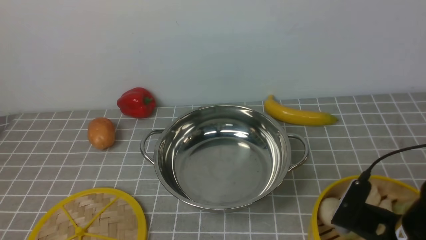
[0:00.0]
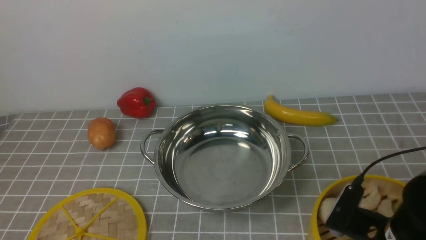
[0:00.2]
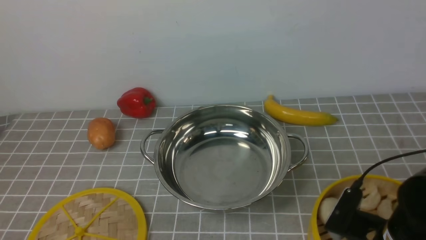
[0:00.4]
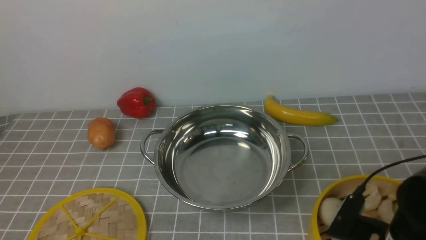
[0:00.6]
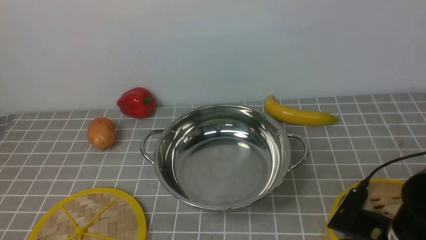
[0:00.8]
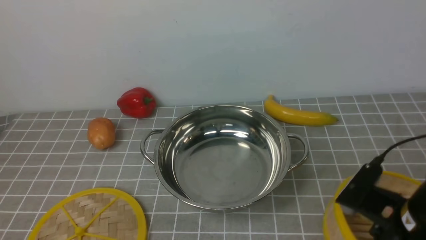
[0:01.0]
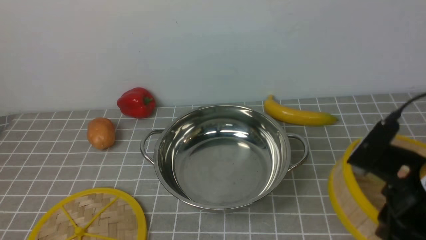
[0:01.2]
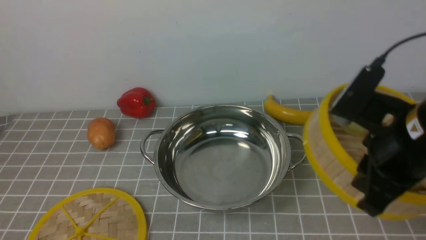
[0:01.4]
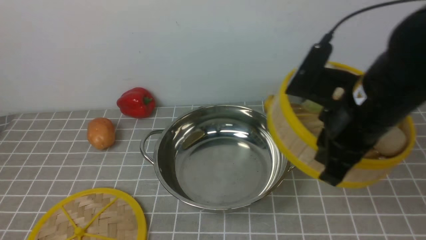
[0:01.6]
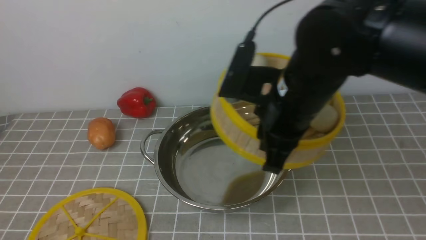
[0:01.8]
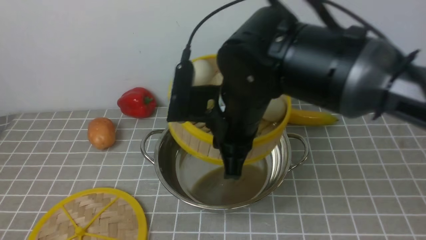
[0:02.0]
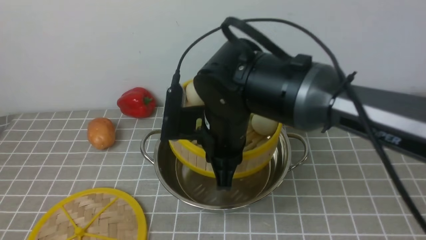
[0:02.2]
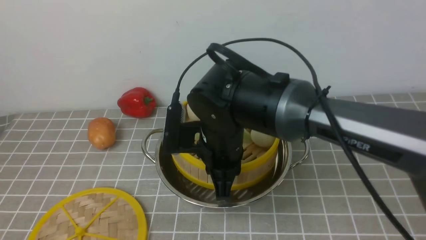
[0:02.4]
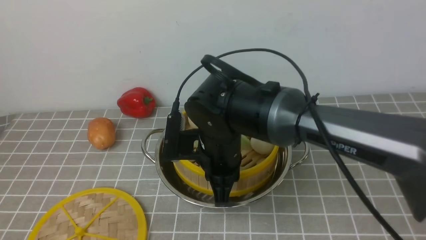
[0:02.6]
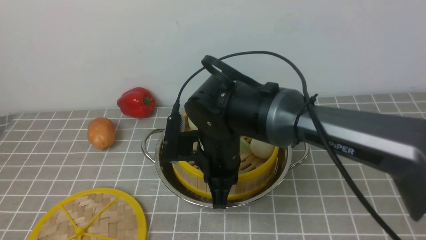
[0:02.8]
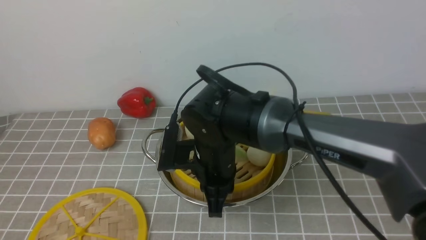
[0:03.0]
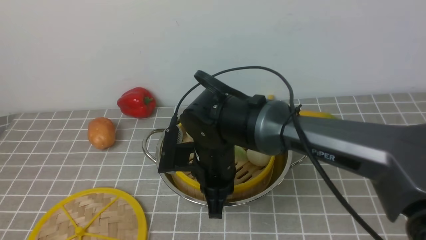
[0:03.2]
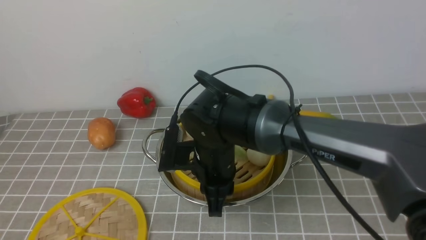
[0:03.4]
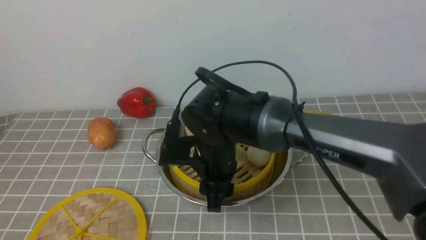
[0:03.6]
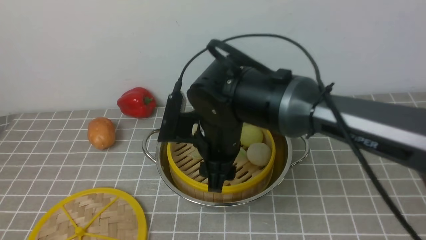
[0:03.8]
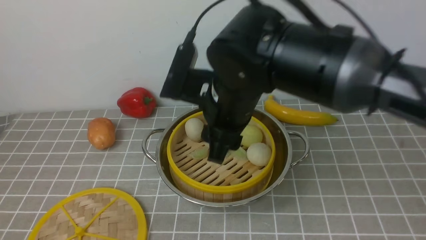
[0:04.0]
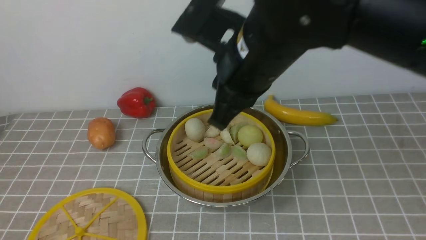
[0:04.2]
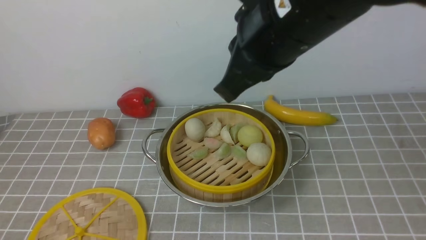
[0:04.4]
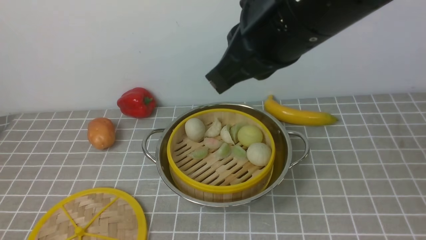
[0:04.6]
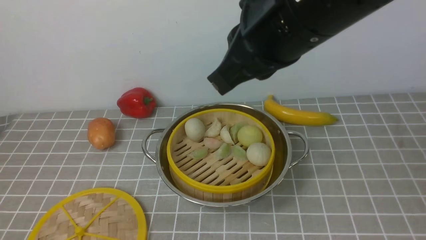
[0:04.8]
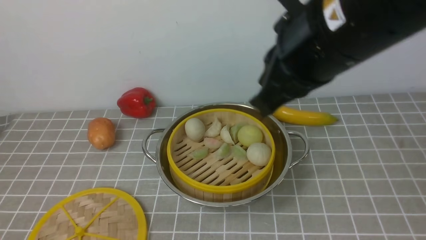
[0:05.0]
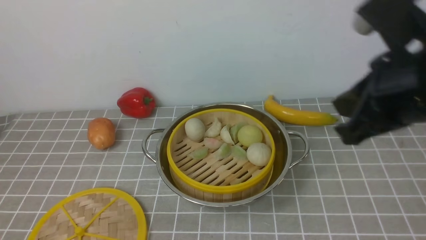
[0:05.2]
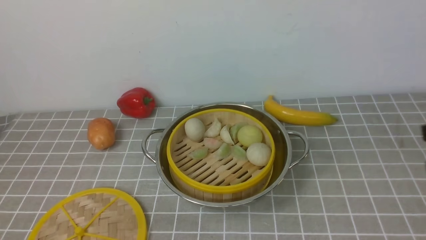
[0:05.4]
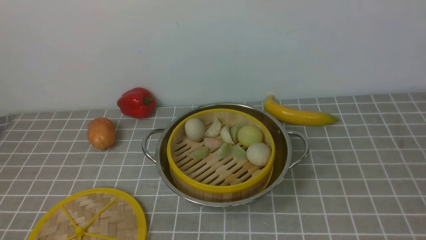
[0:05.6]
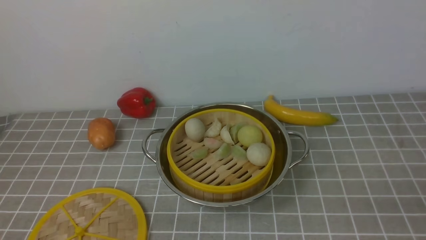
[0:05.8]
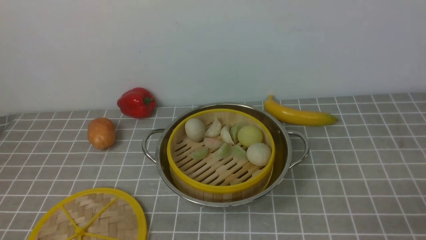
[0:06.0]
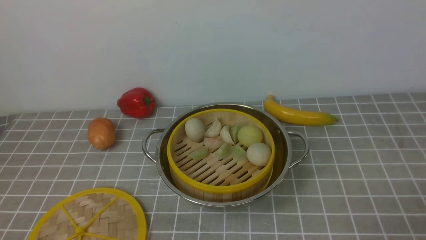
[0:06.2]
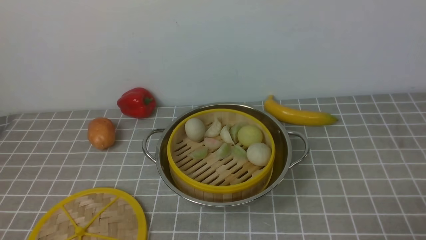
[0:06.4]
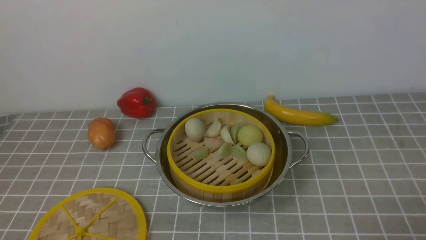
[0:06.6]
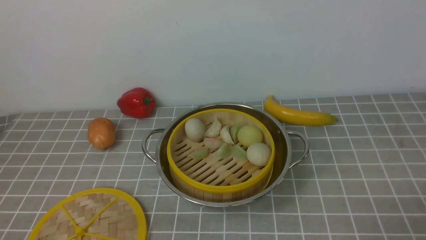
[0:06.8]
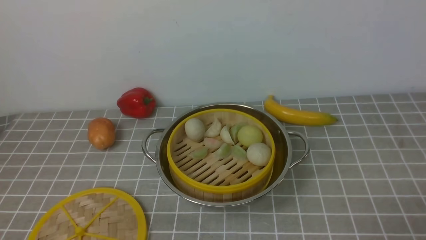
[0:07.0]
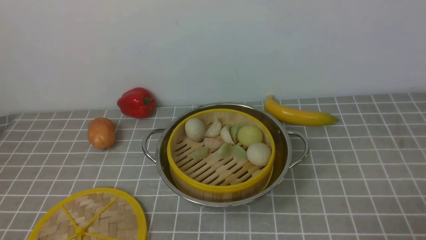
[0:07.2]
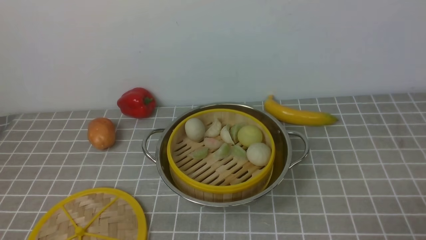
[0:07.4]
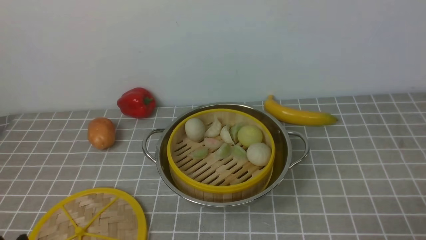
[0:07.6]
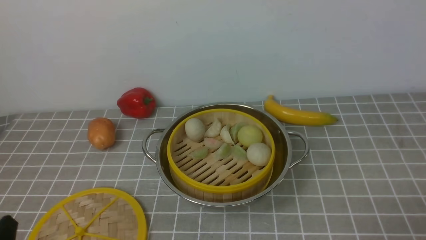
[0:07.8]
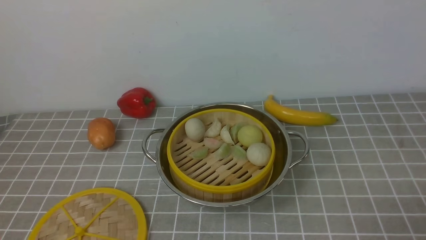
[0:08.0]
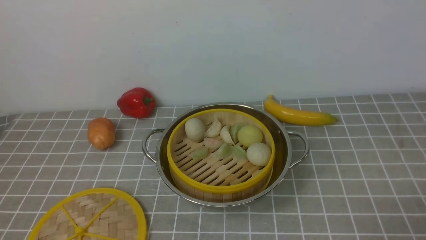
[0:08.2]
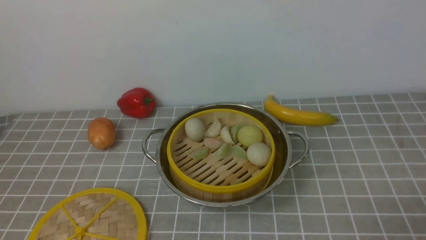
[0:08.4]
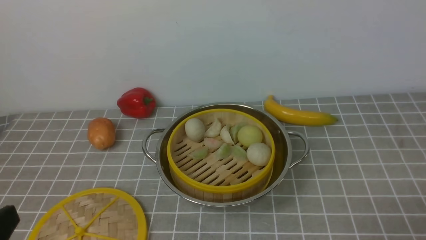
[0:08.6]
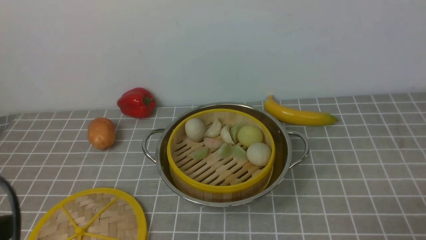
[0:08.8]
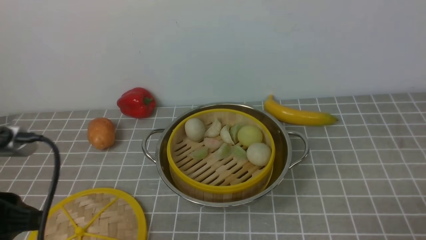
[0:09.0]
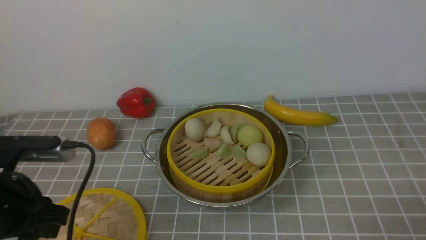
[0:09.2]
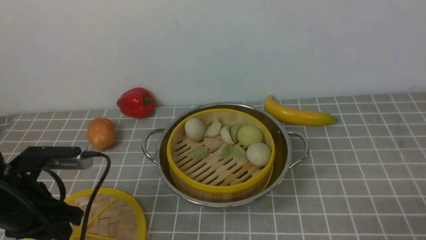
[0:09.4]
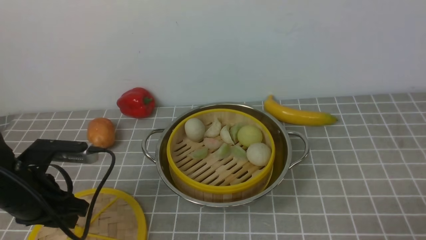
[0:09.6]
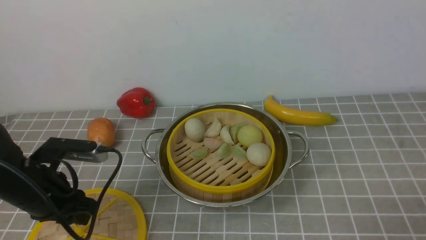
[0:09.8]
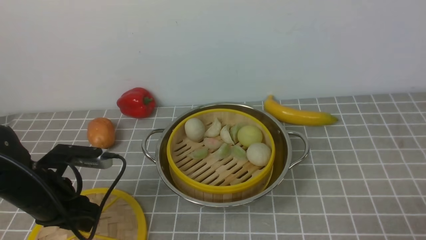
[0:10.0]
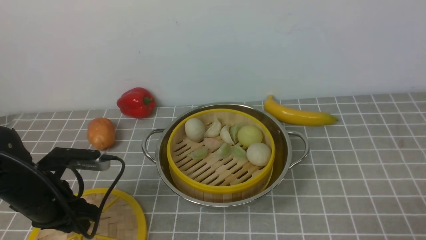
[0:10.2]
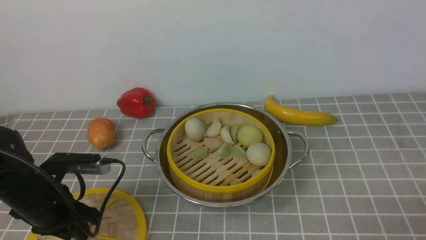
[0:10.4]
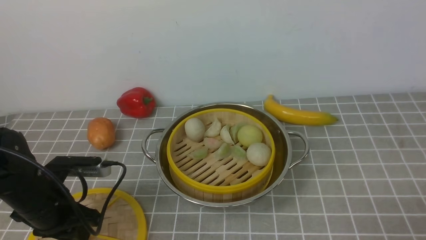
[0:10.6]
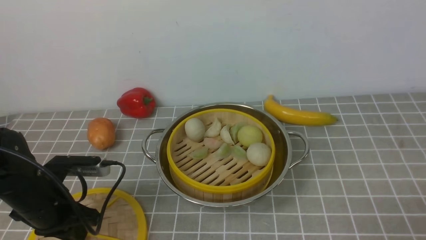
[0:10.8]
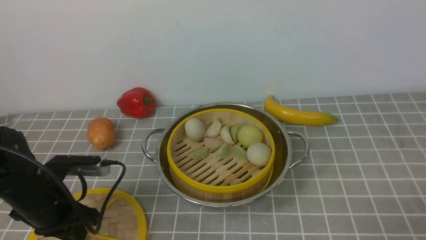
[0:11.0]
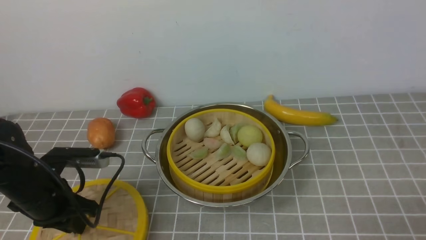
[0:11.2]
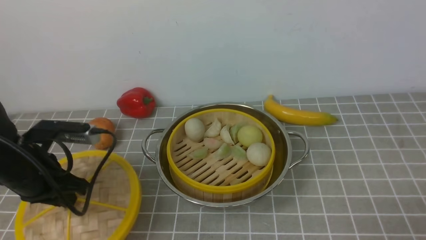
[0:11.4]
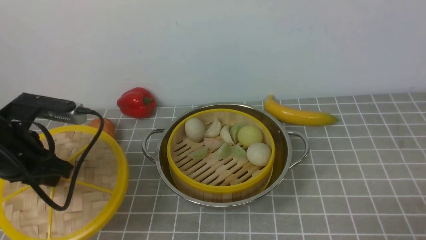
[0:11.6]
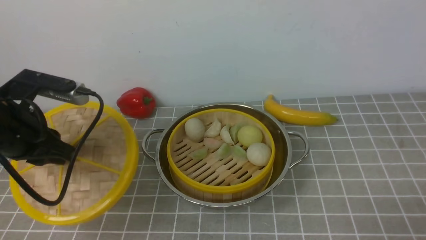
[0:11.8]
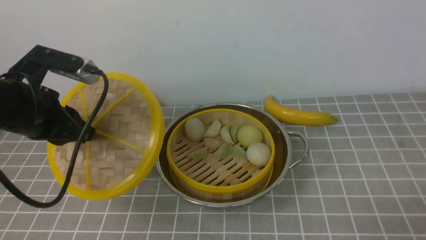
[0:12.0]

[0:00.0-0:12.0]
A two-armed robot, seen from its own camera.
Task of the whole recording: place the steamer in the pot on the grey tablecloth, and put the lid on the steamer.
Step, 0:01.0 to 0:03.6: use the right arm to put the steamer into the iron steamer pot in the middle.
Step, 0:03.8 to 0:11.2: use the left arm to lift the lid of the steamer.
0:00.0 to 0:01.6: The right gripper moves upward, forward and to the left, about 15 cm, and closes its fingers.
0:01.6 to 0:03.0: The right gripper travels to the left and downward by about 20 cm.
0:03.0 to 0:04.4: The right gripper travels upward by about 20 cm, and opens, then closes again.
0:04.4 to 0:06.0: The right gripper shifts about 40 cm to the right, downward and backward.
0:07.6 to 0:09.0: The left gripper heads upward and forward, covering approximately 15 cm.
0:09.0 to 0:10.4: The left gripper heads downward and forward, covering roughly 15 cm.
0:10.4 to 0:12.0: The left gripper is displaced upward by roughly 15 cm, and closes.

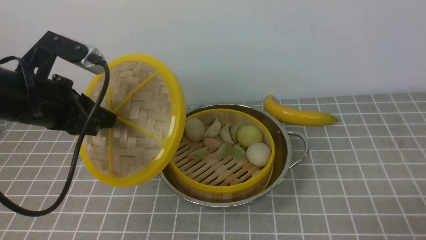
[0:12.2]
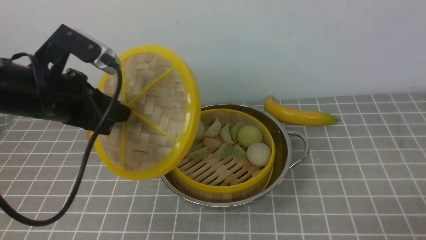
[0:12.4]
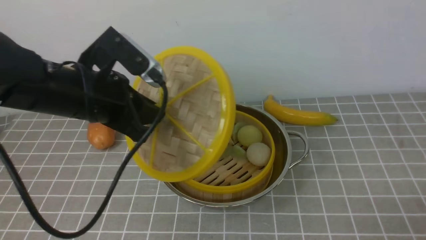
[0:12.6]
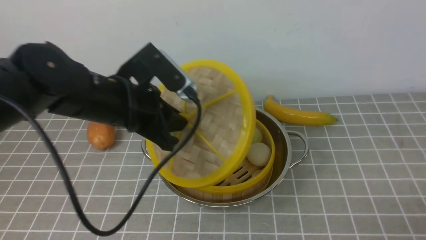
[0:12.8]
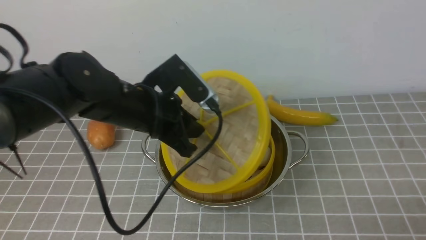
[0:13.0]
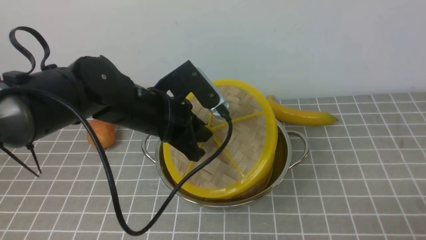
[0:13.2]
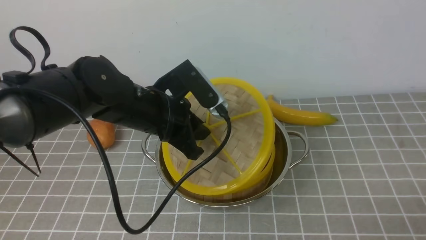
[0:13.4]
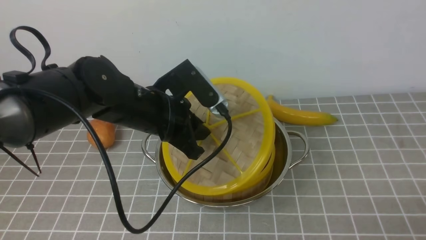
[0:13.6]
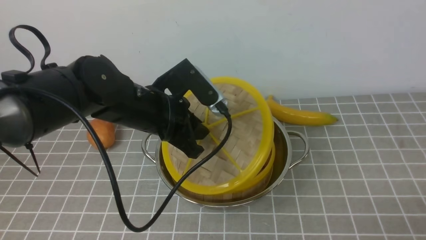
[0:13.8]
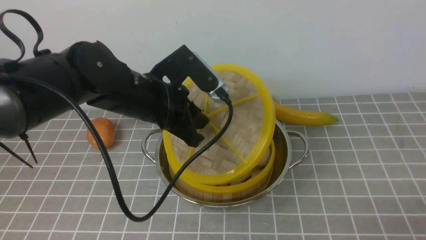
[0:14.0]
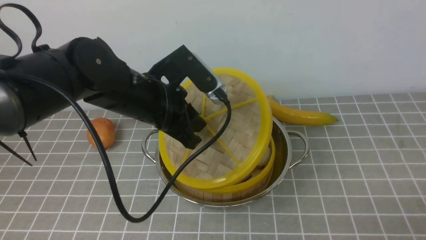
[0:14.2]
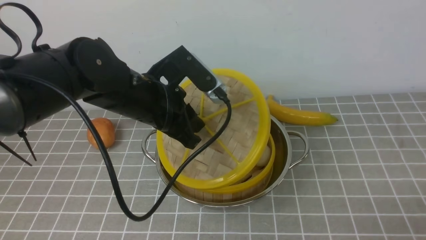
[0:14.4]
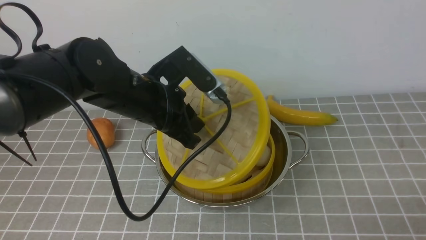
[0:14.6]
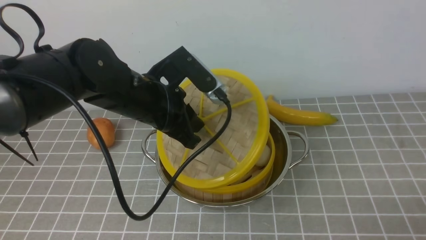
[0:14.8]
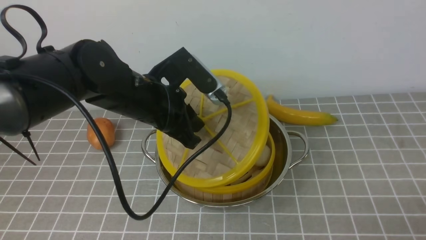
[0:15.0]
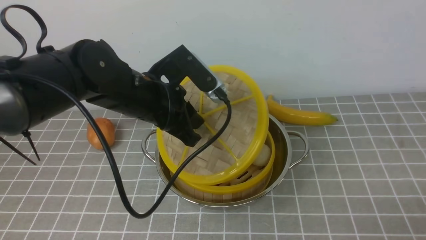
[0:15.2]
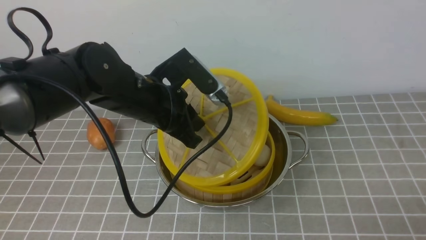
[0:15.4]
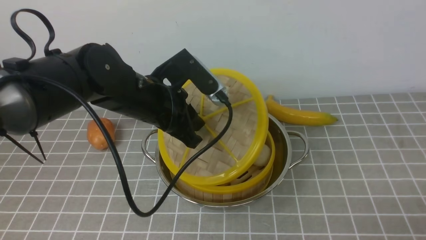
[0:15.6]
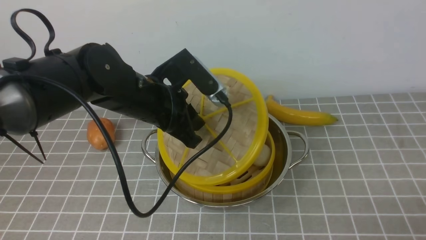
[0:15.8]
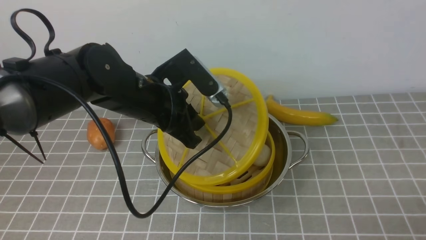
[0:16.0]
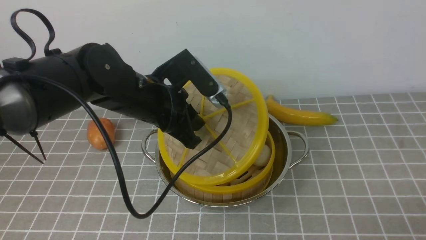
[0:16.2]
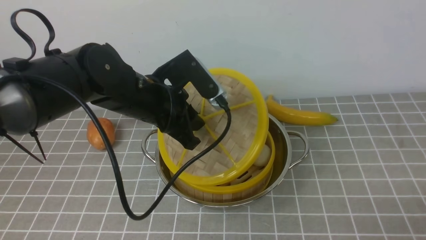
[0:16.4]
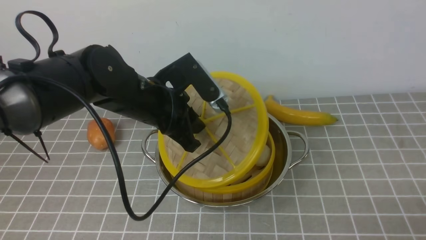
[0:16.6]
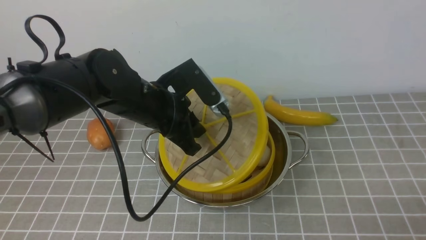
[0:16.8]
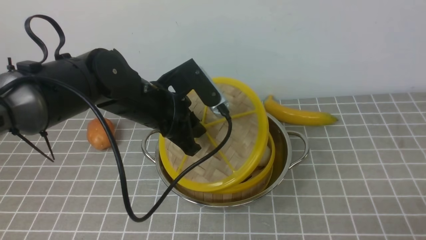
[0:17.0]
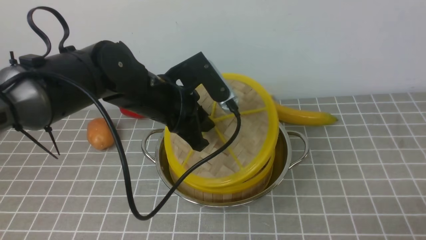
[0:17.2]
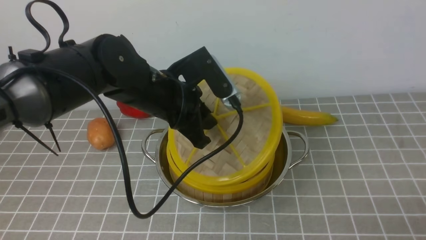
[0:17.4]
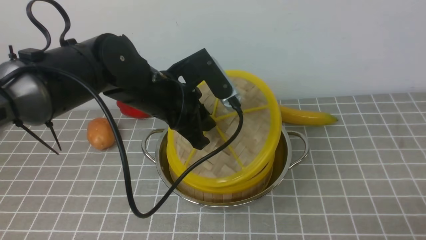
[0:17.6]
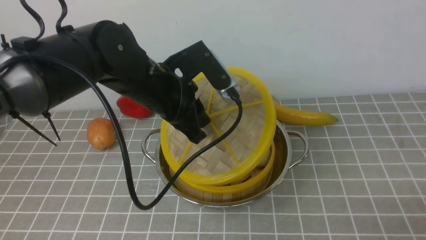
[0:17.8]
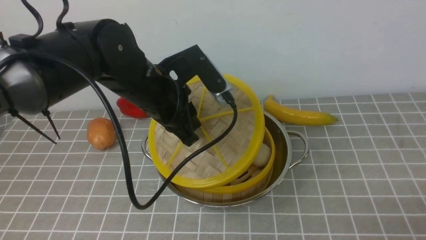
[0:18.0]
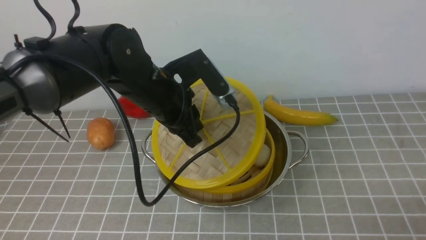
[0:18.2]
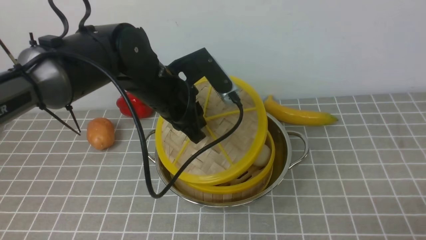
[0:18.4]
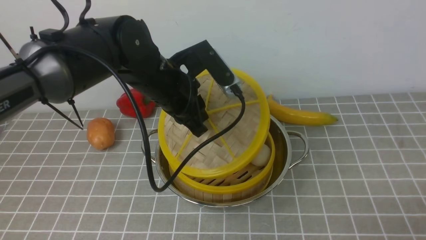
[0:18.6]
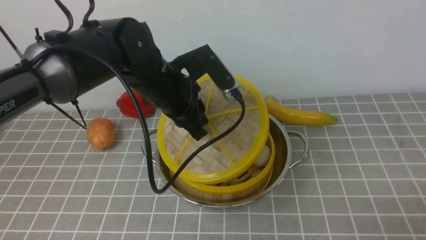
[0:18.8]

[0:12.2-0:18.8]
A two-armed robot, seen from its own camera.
Task of the whole recording: place the steamer in the pot on the grey tablecloth, and put the lid on the steamer.
0:12.2 to 0:13.8: The left gripper travels to the right by some 15 cm.
0:13.8 to 0:15.4: Both grippers stay about where they are.
0:15.4 to 0:18.8: There are only small adjustments of the grippers.
